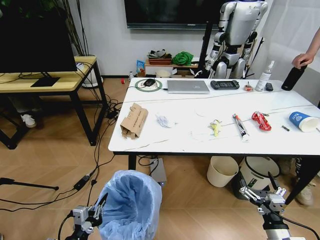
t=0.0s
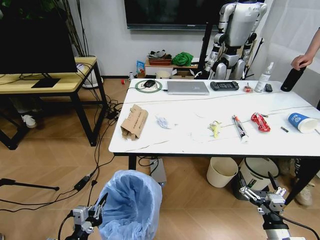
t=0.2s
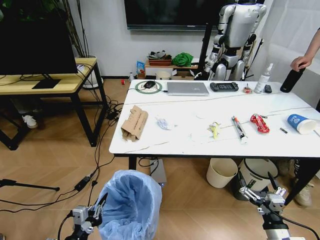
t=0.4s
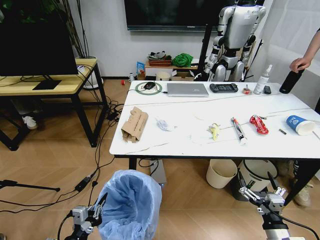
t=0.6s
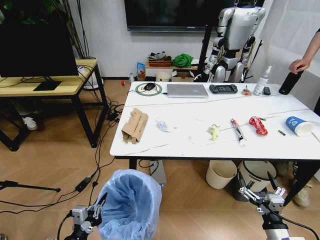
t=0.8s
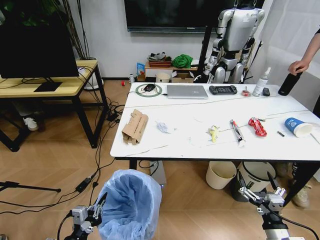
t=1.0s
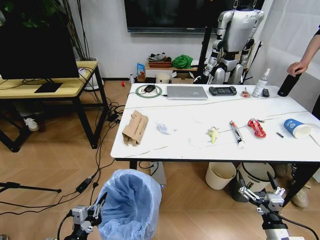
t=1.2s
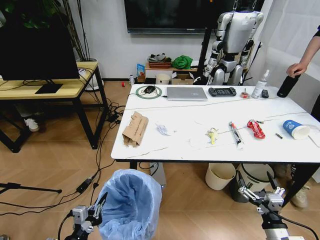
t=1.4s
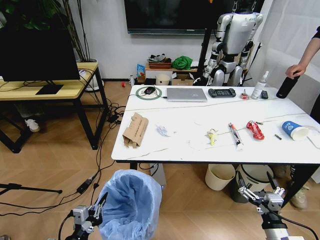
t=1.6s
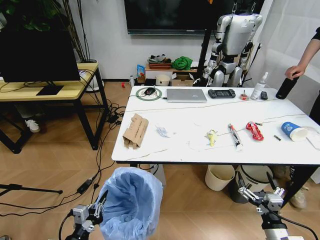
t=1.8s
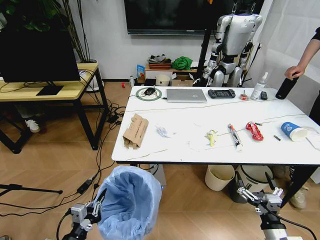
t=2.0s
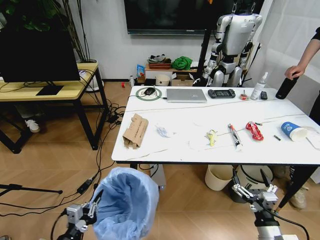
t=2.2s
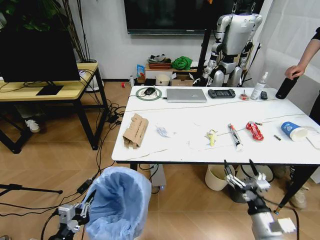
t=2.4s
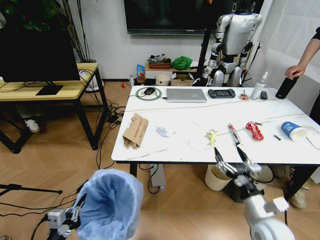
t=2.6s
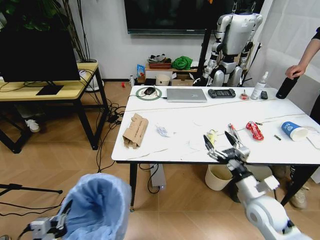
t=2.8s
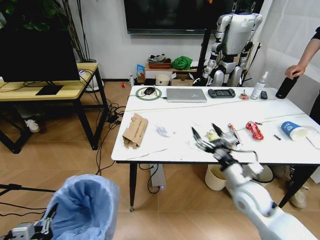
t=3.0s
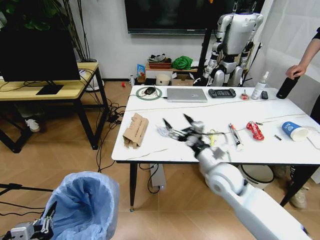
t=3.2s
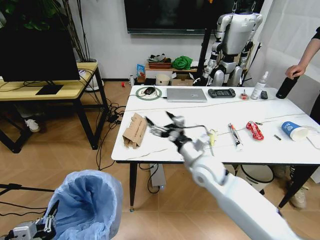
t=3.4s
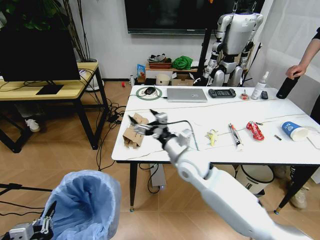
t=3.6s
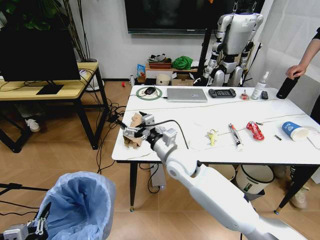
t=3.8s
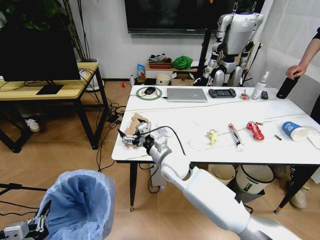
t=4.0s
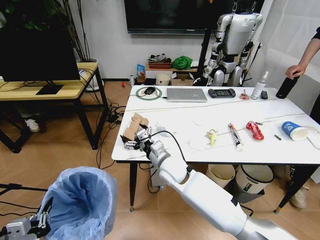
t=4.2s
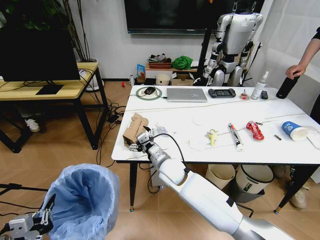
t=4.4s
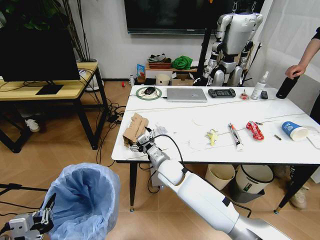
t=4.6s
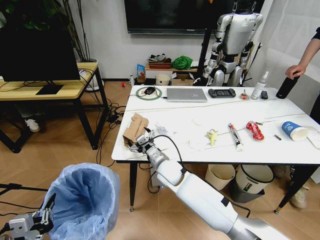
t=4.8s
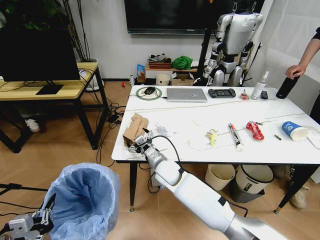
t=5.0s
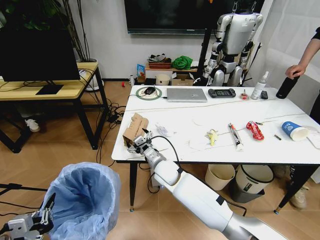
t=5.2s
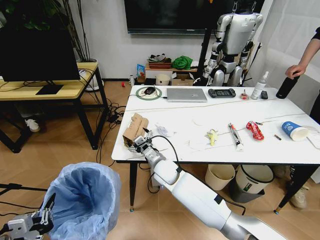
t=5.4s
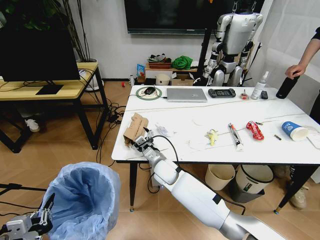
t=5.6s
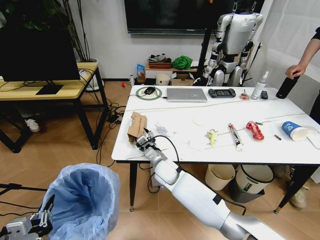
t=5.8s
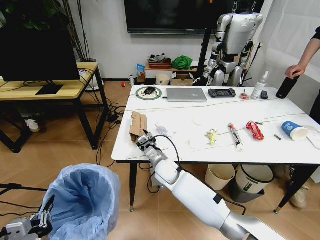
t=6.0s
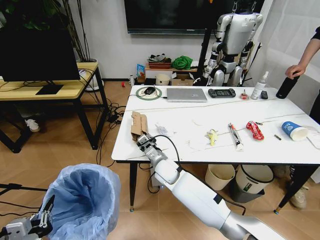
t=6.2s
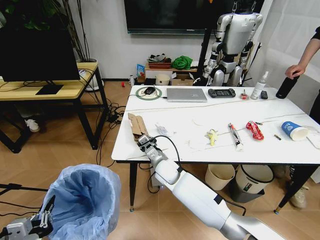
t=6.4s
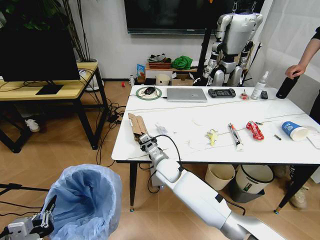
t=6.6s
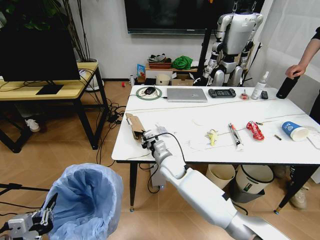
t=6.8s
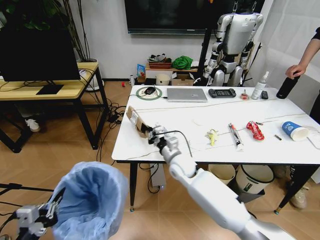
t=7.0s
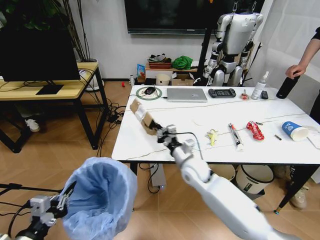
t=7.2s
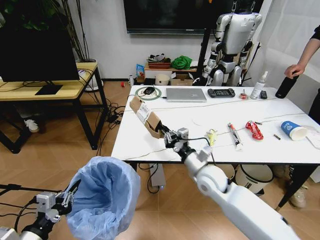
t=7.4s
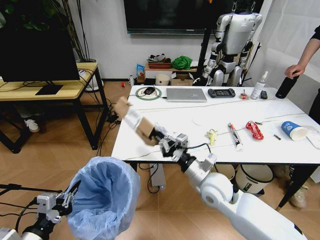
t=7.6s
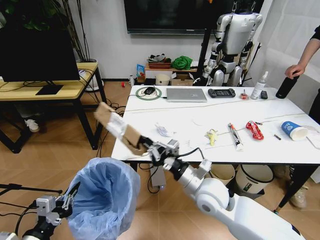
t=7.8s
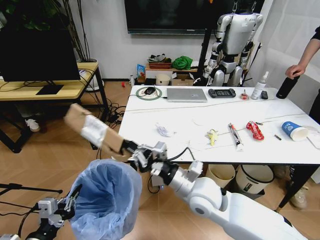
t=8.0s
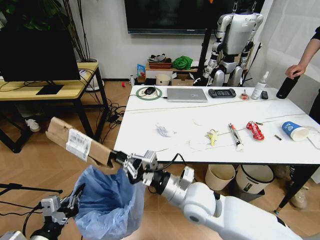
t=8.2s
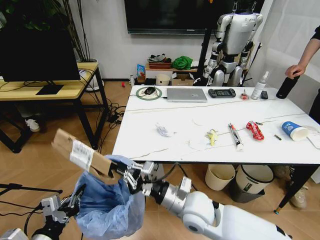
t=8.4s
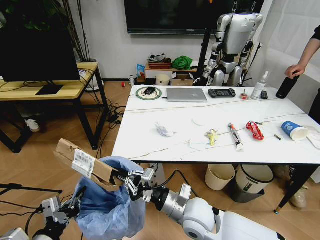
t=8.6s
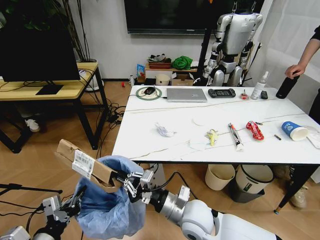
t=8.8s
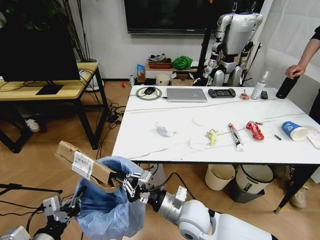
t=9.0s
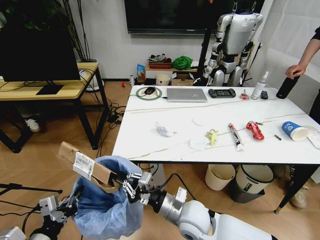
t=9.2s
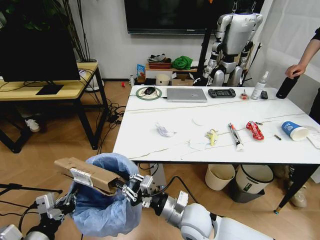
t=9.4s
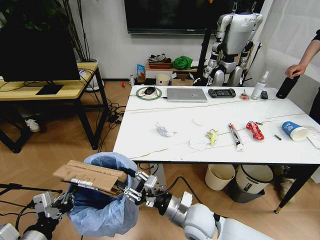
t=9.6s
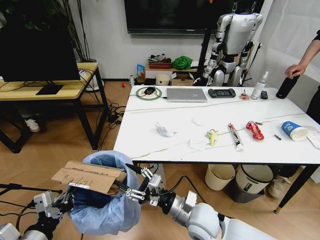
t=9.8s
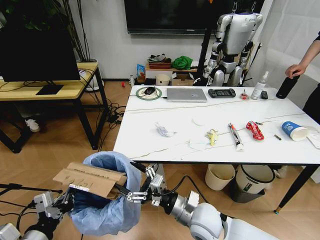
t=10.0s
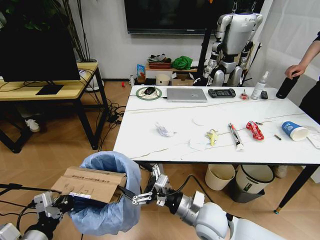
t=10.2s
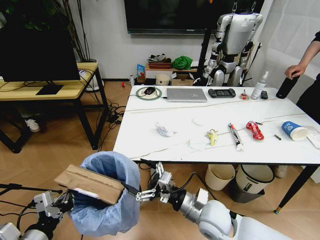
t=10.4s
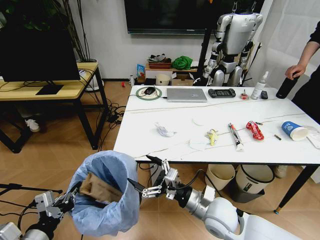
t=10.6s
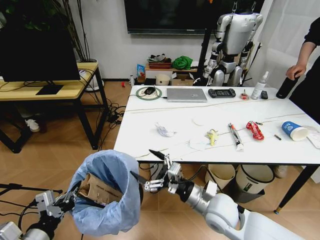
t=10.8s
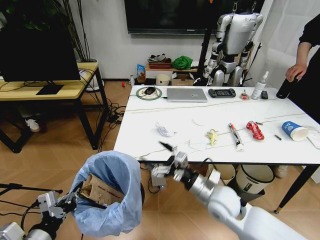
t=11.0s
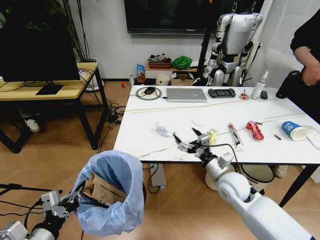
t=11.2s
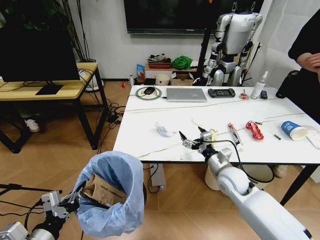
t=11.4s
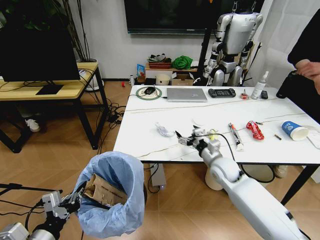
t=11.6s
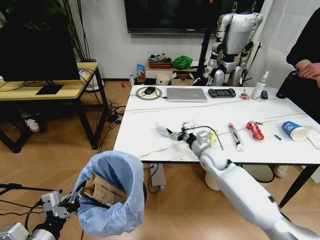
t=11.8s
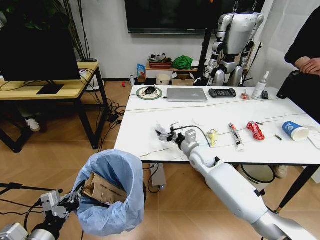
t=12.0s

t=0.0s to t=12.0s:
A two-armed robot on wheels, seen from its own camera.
Task of the whole recording: Pick up the trash bin and place the trash from the table into it.
t=1.6s to t=3.0s: The left gripper travels to the left, backward and upward by roughly 10 cm; the right gripper moves forward, upward and to the left, some 20 cm.
t=3.0s to t=4.4s: The right gripper travels to the left and forward by roughly 25 cm.
t=4.4s to t=6.0s: The right gripper closes.
t=6.0s to t=7.6s: The left gripper is displaced forward by approximately 5 cm. The right gripper is displaced to the right, backward and upward by about 20 cm, and closes its fingers.
t=7.6s to t=9.0s: The right gripper goes about 10 cm to the left and backward.
t=9.0s to t=10.4s: The right gripper travels to the right by roughly 5 cm, and opens up.
t=10.4s to t=12.0s: The right gripper shifts roughly 20 cm forward.

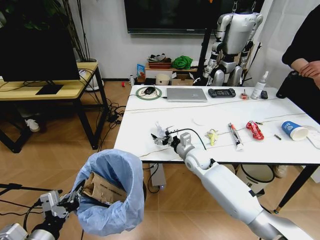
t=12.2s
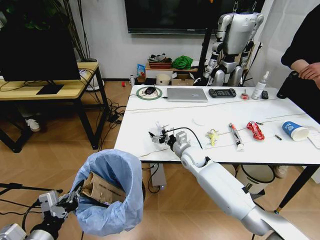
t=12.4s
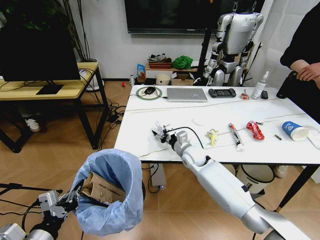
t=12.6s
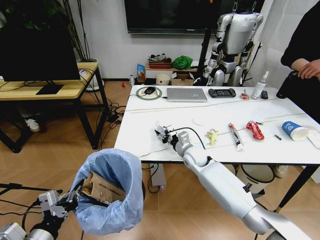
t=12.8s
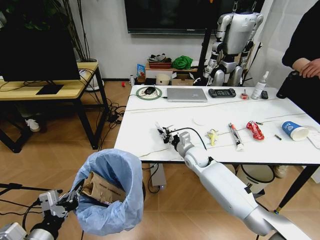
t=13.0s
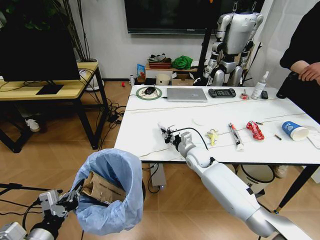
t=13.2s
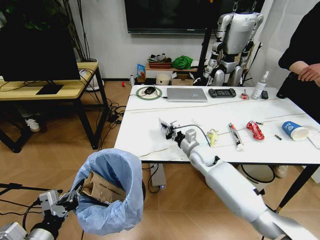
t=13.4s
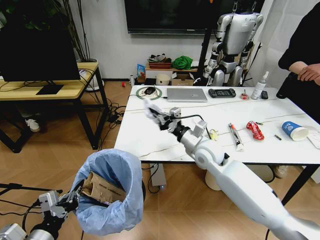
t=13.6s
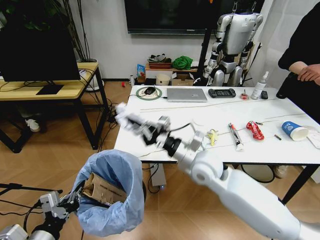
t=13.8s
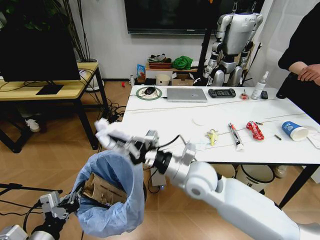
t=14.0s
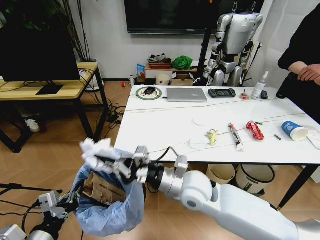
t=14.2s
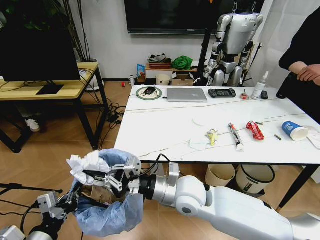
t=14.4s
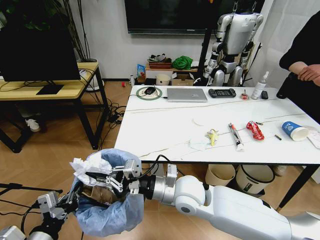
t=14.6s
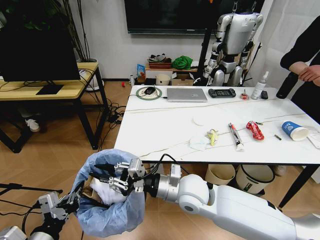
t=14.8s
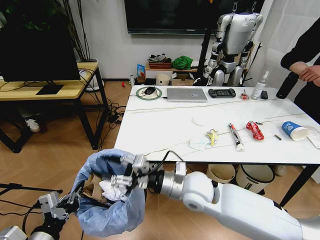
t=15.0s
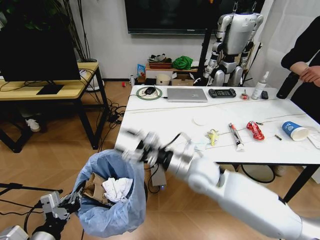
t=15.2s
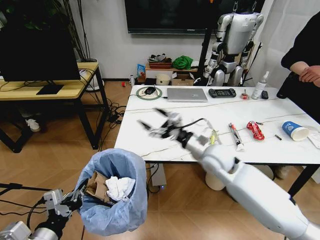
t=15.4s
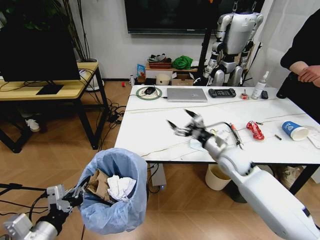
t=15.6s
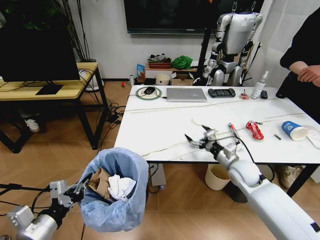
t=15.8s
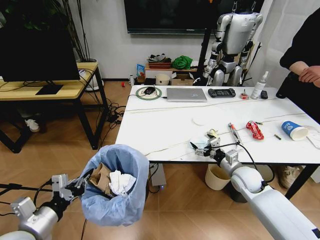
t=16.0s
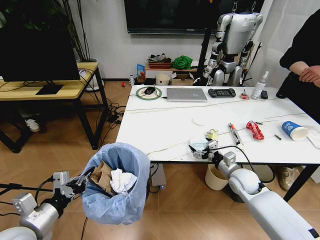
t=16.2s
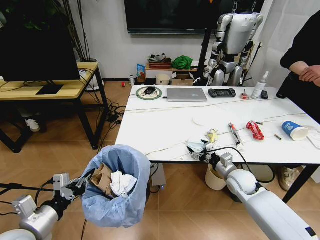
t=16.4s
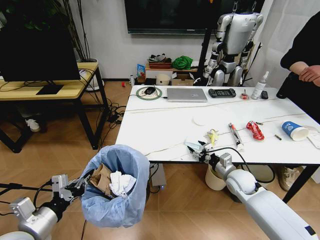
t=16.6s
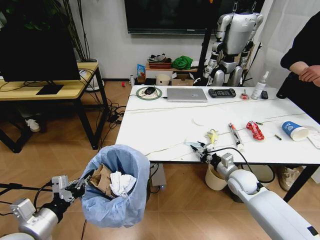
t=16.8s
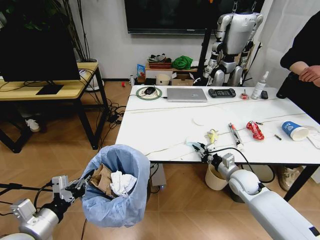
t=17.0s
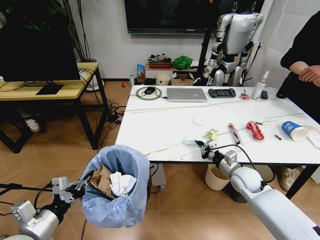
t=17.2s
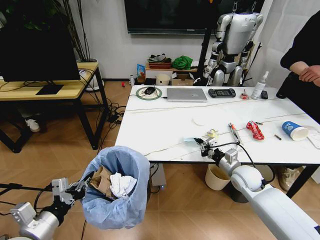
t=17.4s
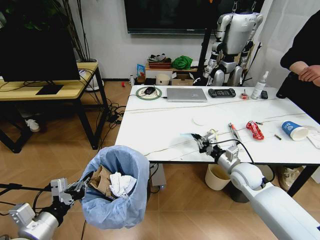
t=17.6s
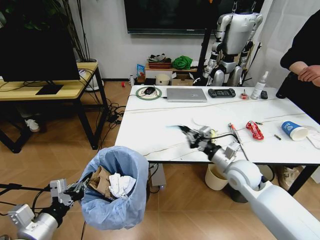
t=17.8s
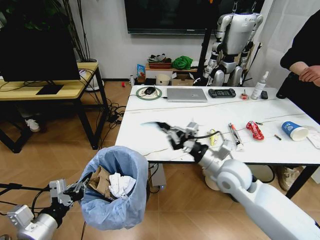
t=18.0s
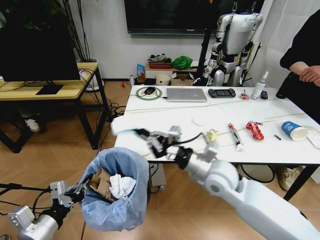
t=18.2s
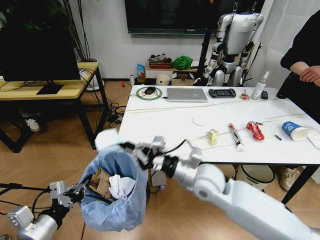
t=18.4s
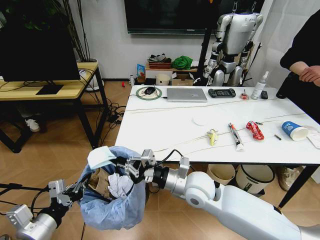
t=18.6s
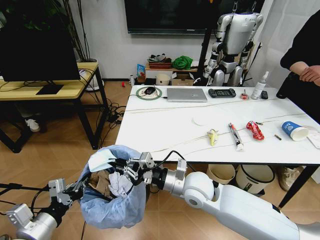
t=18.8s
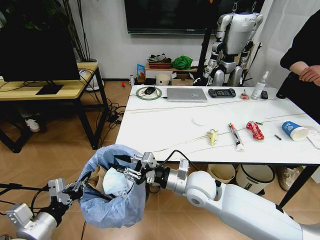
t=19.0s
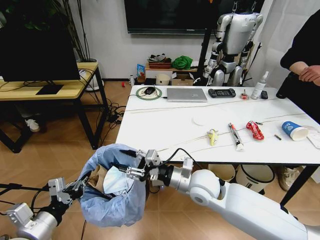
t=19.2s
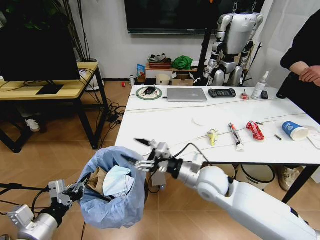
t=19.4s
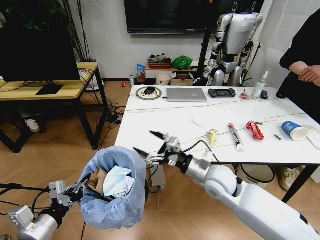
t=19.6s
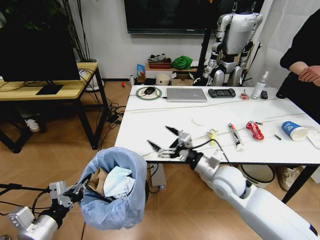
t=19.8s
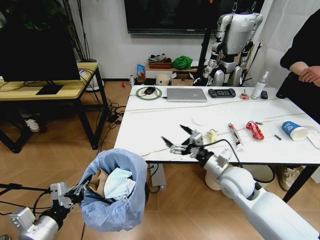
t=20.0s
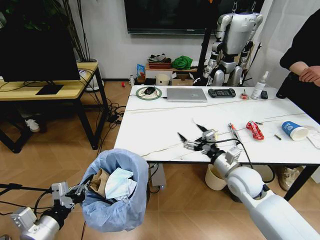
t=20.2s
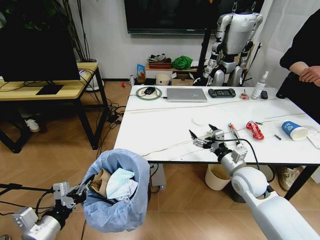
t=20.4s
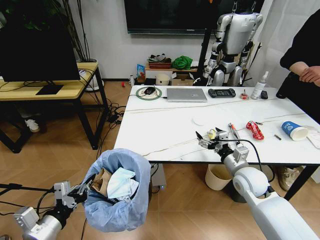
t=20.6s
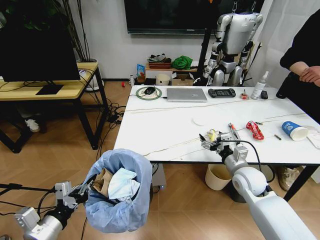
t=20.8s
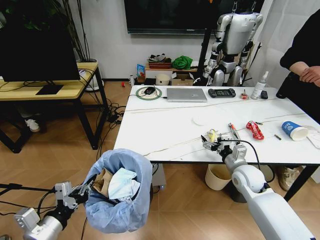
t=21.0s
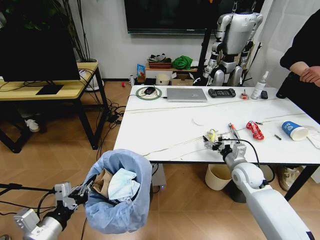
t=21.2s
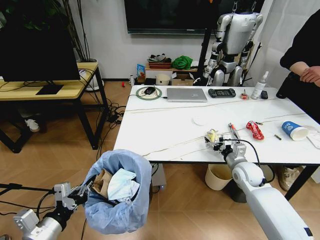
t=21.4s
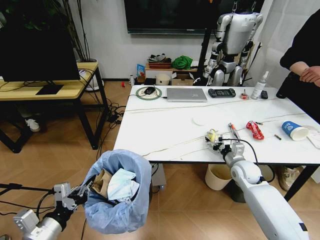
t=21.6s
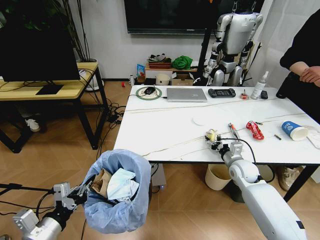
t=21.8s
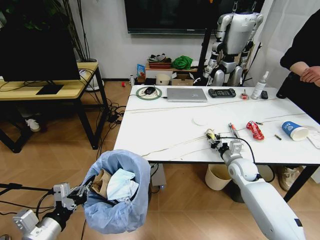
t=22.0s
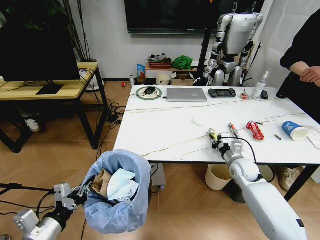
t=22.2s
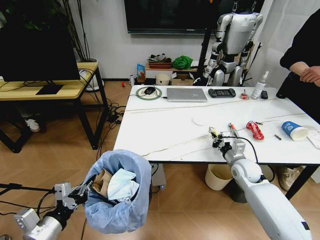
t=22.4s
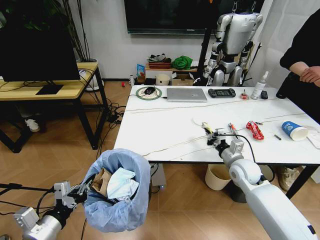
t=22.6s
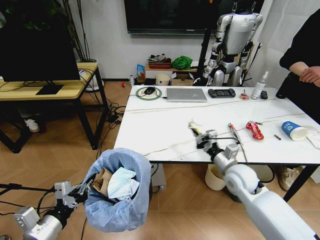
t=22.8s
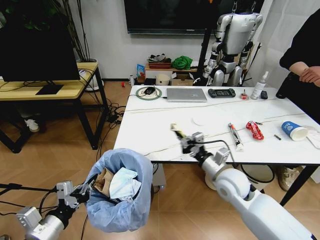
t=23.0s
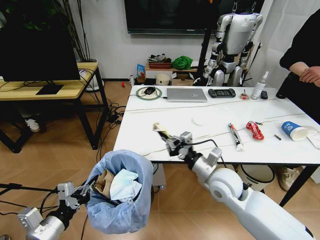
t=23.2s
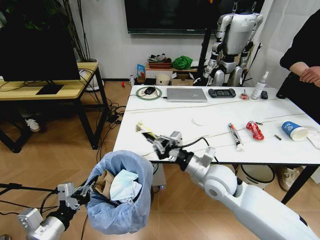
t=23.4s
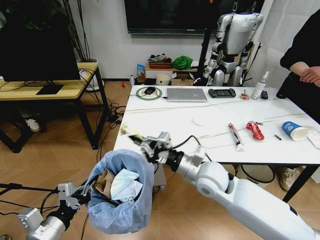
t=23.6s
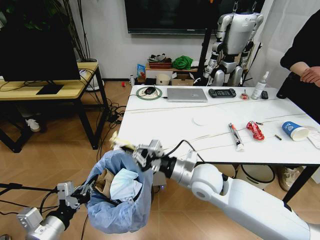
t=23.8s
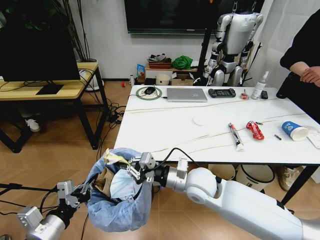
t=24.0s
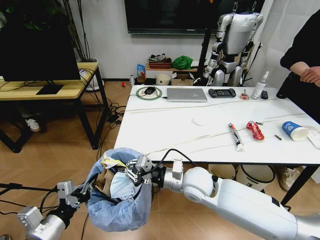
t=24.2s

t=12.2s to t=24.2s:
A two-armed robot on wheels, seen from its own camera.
Task of the whole recording: Pick up the trash bin and place the trash from the table into it.
t=12.2s to t=13.8s: The right gripper heads upward and backward, covering approximately 15 cm, and closes up.
t=13.8s to t=15.2s: The right gripper opens up.
t=15.2s to t=16.6s: The left gripper goes approximately 5 cm forward. Meanwhile the right gripper moves to the right and downward, about 25 cm, and opens and closes again.
t=16.6s to t=18.2s: The right gripper shifts roughly 20 cm upward and to the left, and closes its fingers.
t=18.2s to t=19.8s: The right gripper ends up some 5 cm from where it was, and opens its fingers.
t=19.8s to t=21.2s: The right gripper travels to the right, downward and forward by some 15 cm.
t=21.2s to t=22.6s: The right gripper closes its fingers.
t=22.6s to t=24.2s: The right gripper goes about 20 cm to the left.
